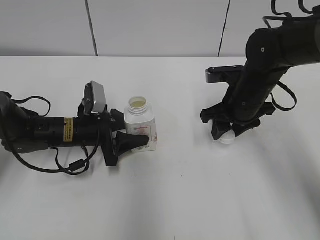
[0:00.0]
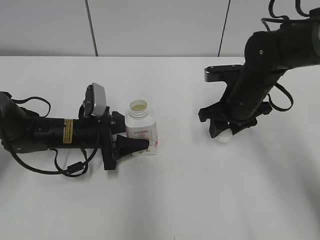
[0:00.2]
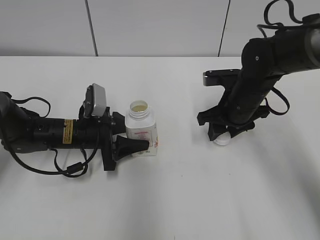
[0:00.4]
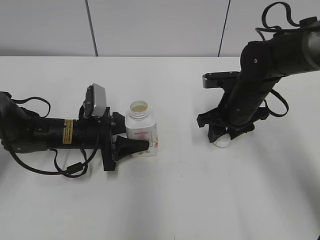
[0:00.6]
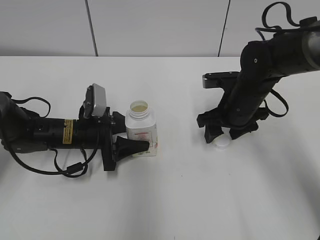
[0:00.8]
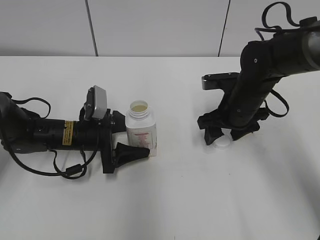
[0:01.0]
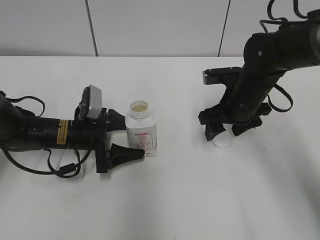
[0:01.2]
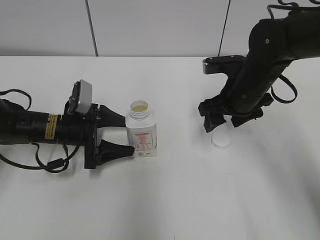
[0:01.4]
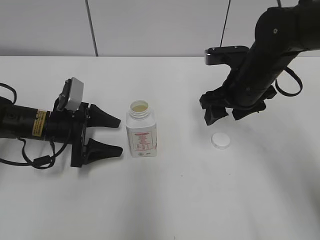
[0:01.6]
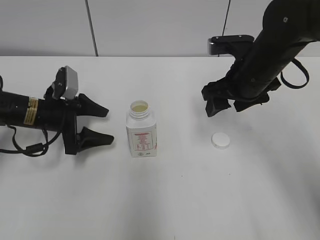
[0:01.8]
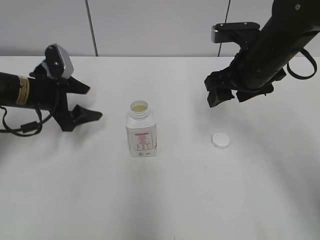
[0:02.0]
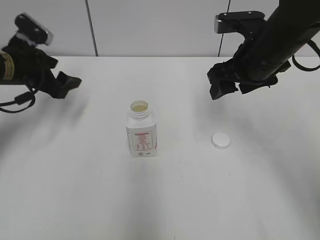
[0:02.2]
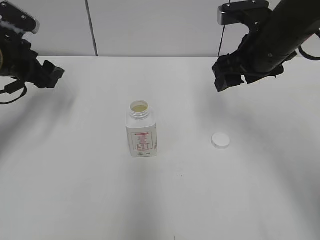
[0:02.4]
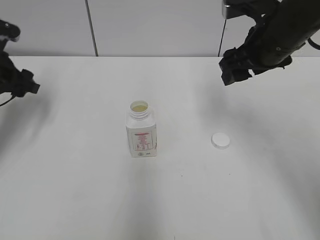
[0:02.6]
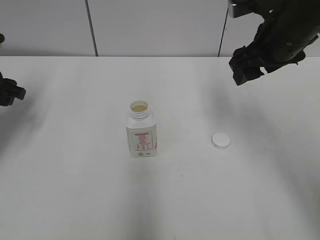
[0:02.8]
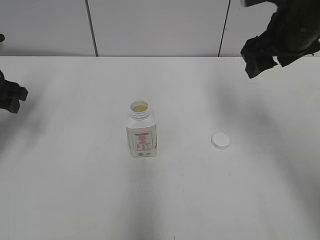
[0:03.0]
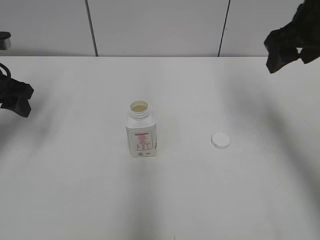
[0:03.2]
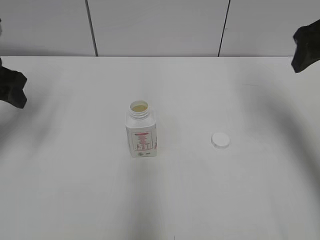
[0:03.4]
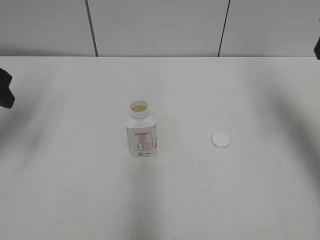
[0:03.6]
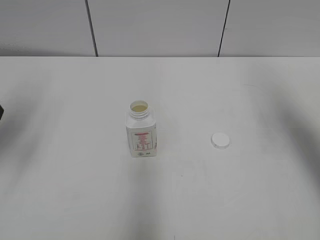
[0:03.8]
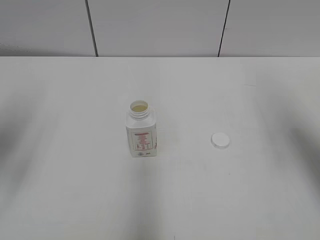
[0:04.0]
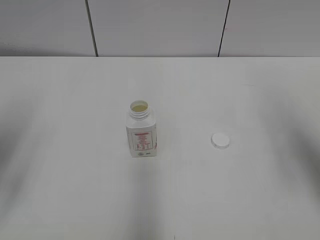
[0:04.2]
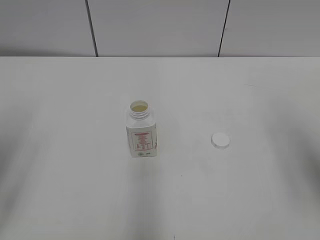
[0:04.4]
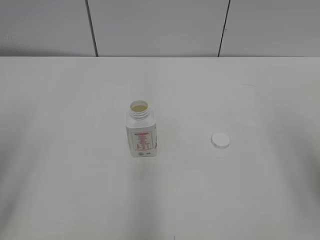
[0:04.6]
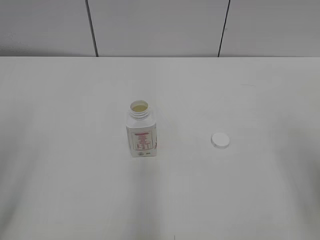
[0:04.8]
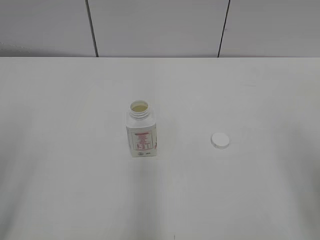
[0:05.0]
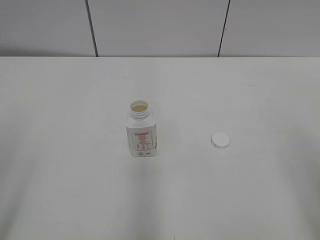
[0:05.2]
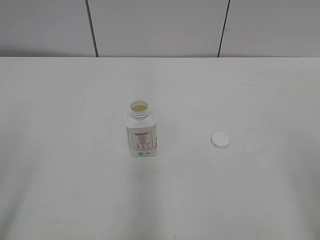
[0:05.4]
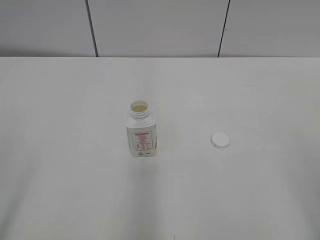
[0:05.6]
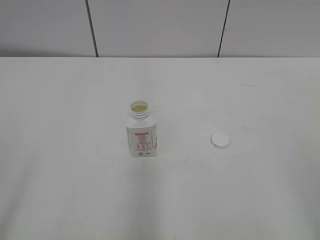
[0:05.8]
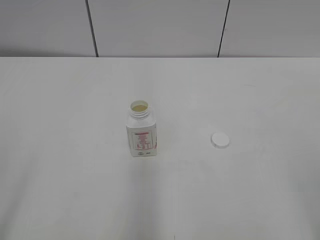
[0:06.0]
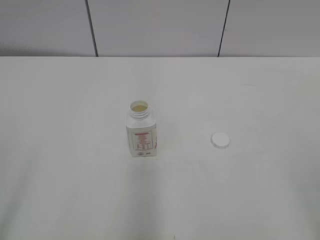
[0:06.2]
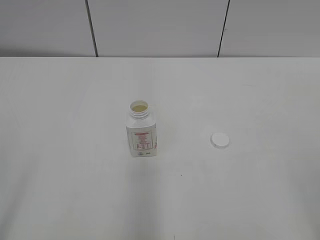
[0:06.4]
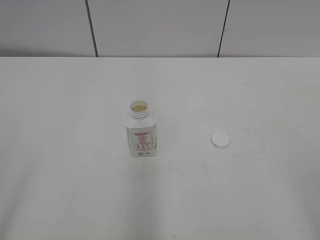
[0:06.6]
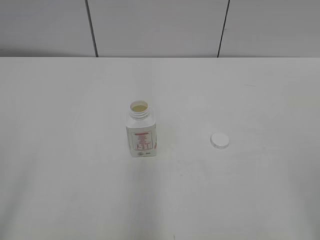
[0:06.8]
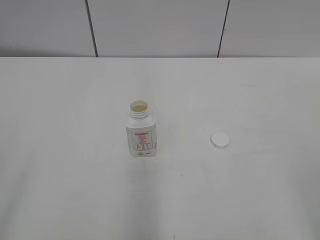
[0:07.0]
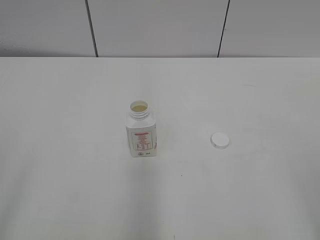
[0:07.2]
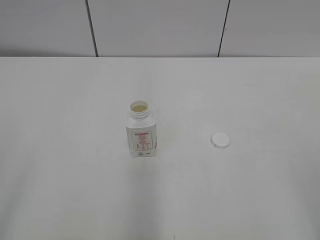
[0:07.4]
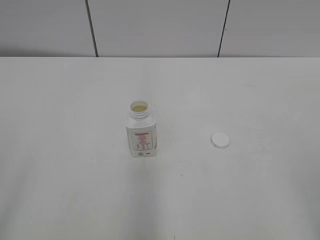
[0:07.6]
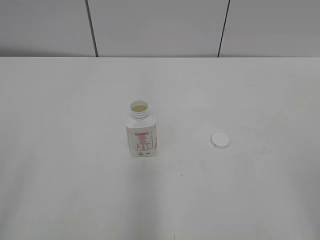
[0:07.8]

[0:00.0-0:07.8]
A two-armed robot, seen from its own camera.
0:00.0 to 0:01.6: The left gripper goes roughly 5 cm to the left, and opens. The right gripper opens.
0:01.6 to 0:03.2: The left gripper goes about 15 cm upward and to the left, and closes up, while the right gripper travels upward and to the right by approximately 15 cm.
0:03.2 to 0:04.6: The two grippers go about 20 cm backward.
0:06.2 to 0:07.8: Neither gripper changes place.

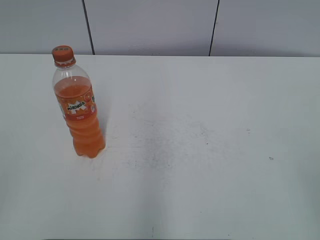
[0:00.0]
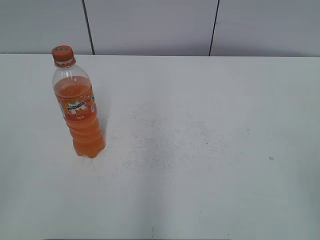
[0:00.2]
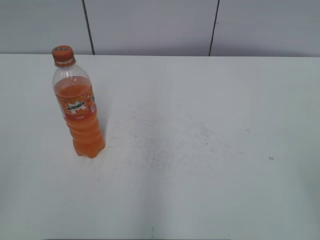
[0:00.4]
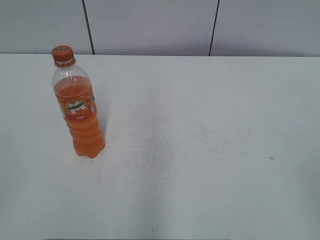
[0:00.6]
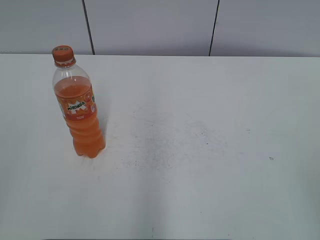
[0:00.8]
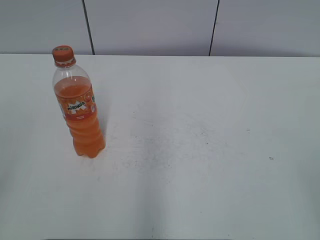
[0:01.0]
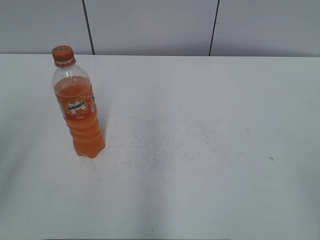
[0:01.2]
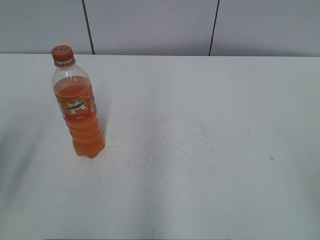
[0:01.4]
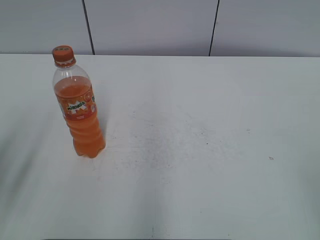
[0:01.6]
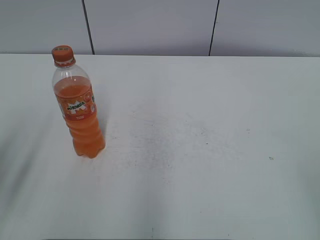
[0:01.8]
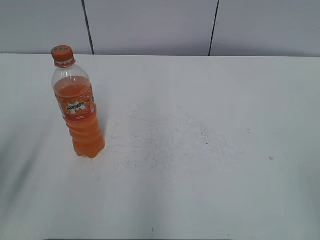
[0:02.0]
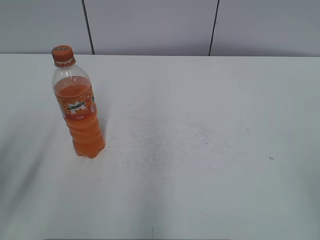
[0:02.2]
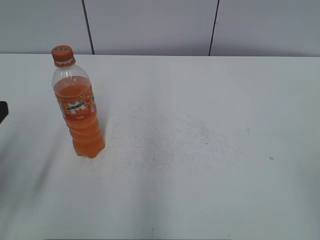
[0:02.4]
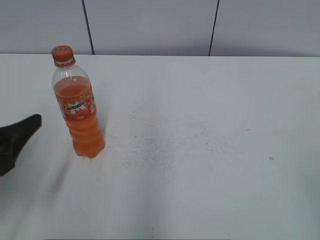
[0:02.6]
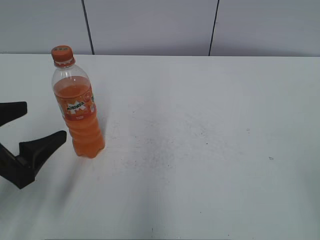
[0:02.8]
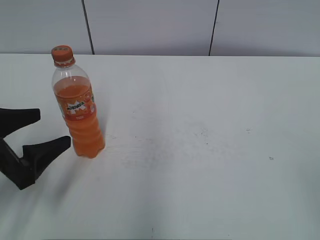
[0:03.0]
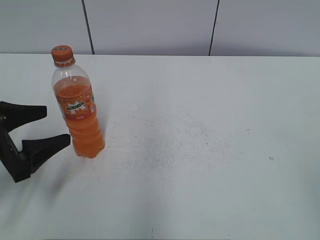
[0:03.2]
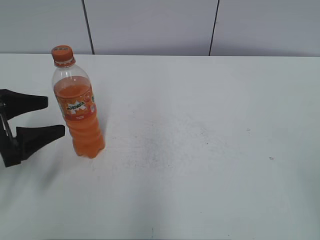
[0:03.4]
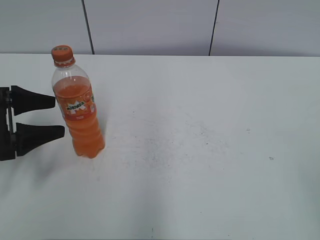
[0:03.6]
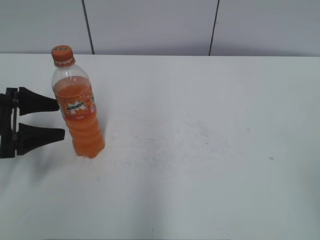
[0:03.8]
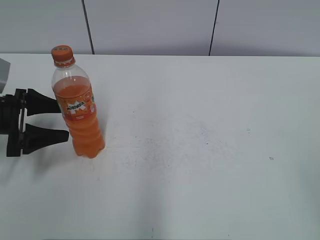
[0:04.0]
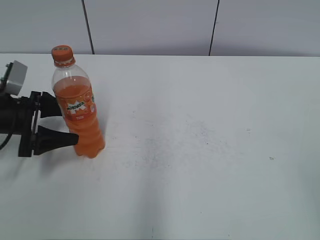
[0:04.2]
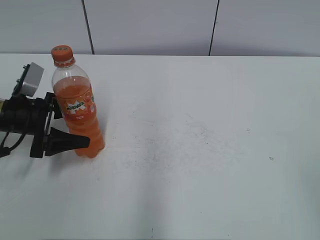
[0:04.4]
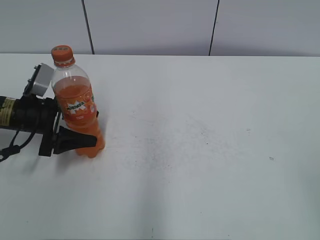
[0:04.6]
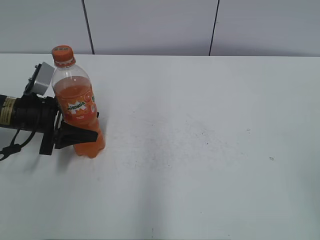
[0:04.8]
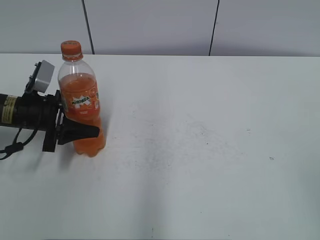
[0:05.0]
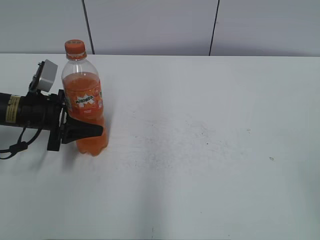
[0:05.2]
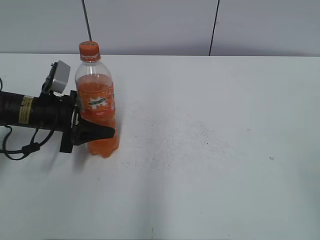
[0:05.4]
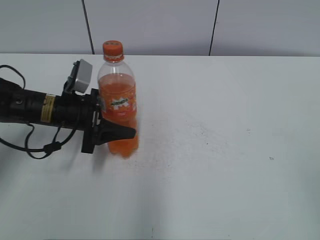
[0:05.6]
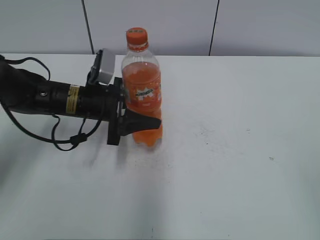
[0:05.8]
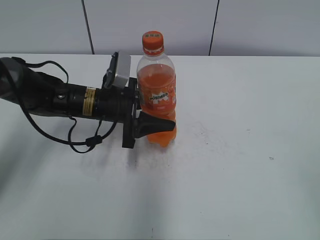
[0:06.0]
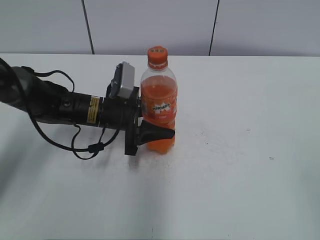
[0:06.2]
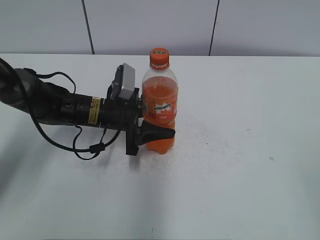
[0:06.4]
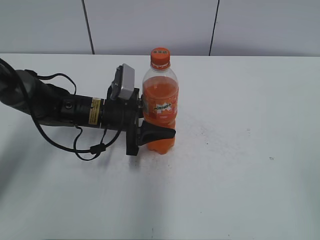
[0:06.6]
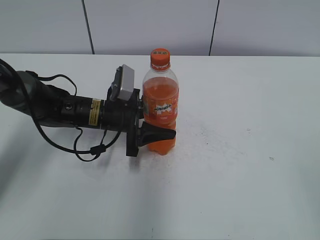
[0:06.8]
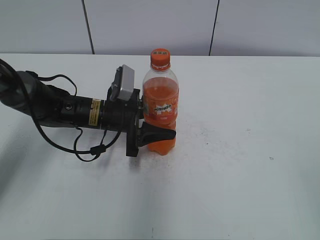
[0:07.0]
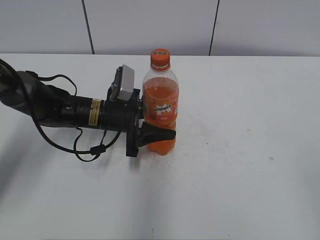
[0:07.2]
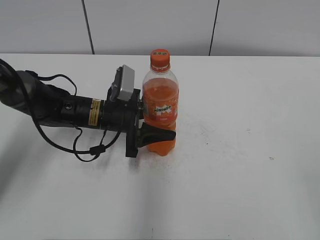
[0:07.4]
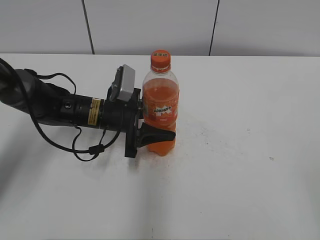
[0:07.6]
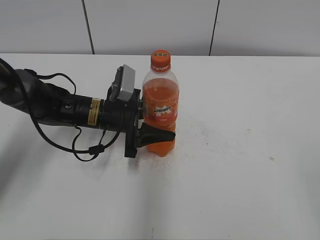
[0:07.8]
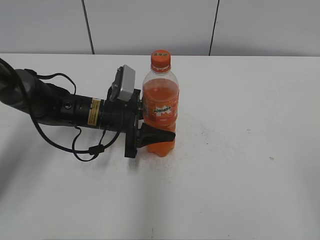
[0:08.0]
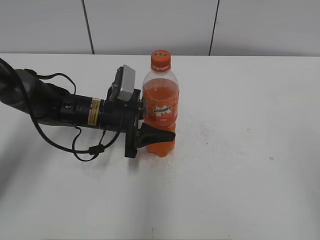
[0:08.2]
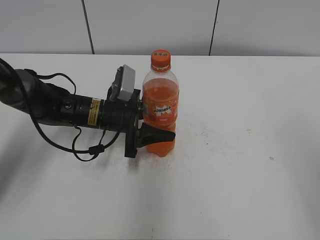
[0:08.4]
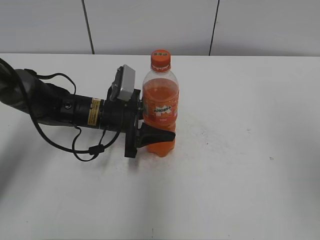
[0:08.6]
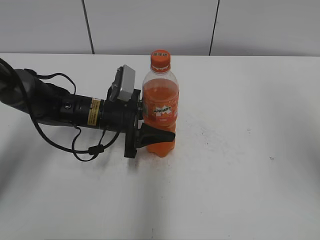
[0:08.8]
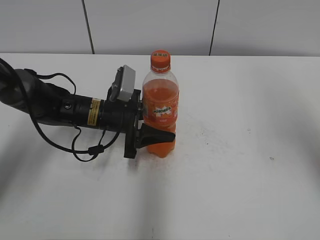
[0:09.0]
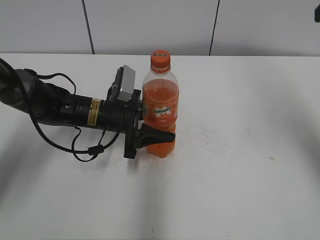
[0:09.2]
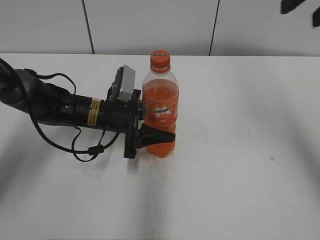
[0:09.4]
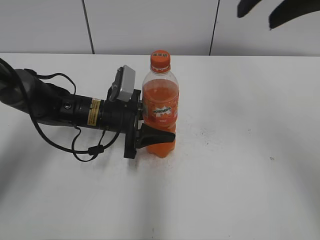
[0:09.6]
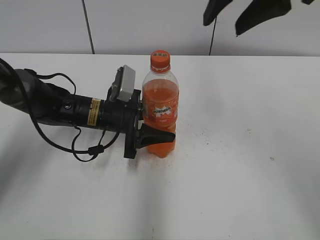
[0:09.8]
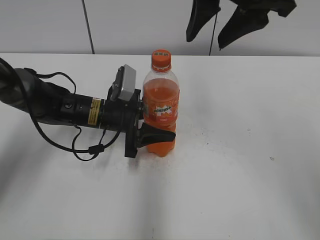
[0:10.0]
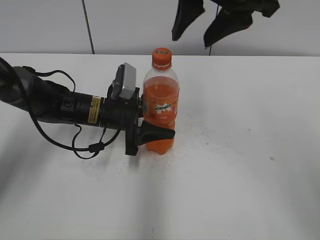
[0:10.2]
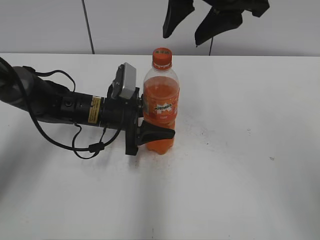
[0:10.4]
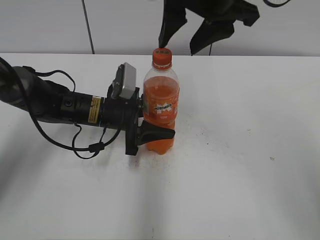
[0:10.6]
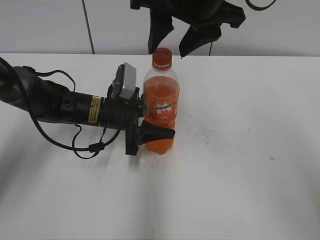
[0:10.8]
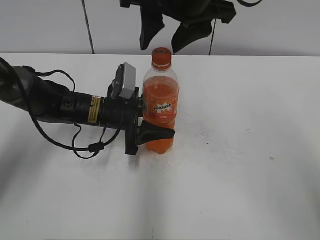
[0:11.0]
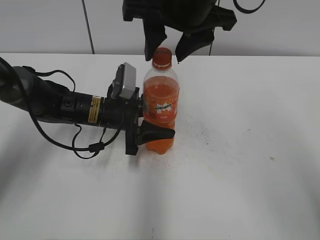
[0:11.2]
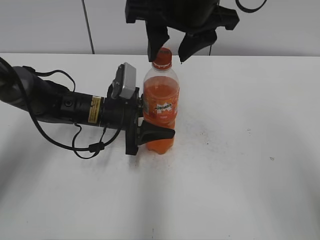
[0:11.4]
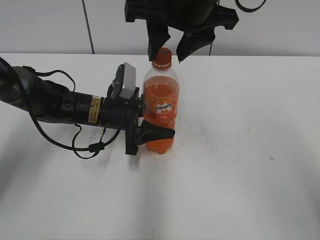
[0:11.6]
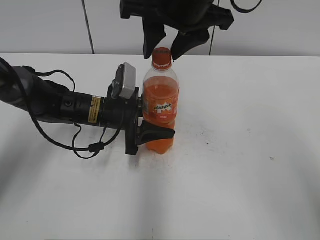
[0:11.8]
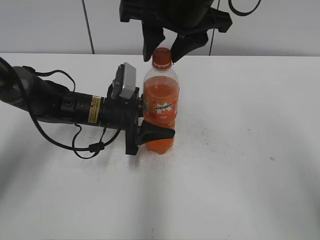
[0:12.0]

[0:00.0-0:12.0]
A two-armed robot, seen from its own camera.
Step, 0:00.0 to 0:05.0: Grab the Mirinda with the left hand.
Step, 0:05.2 to 0:06.4: Move the Mirinda from left to right.
0:01.6 to 0:03.0: The left gripper shifts approximately 15 cm downward and forward, and opens up.
0:03.0 to 0:04.4: The left gripper is displaced forward by some 15 cm.
0:04.4 to 0:06.0: The left gripper travels to the right by approximately 15 cm, and closes up.
0:06.0 to 0:07.6: The grippers make only small movements.
0:07.6 to 0:09.0: The right gripper shifts some 25 cm forward and upward.
0:09.0 to 0:10.4: The right gripper travels to the left and forward by roughly 20 cm.
0:10.4 to 0:12.0: The right gripper ends up approximately 5 cm from where it was.

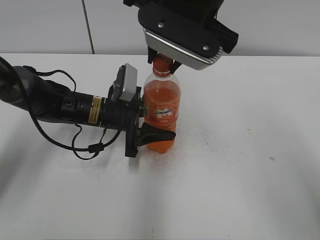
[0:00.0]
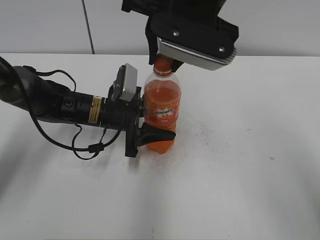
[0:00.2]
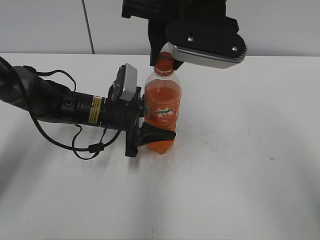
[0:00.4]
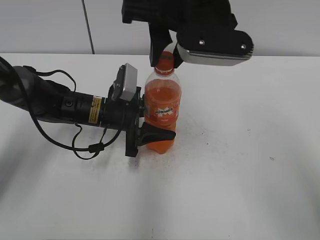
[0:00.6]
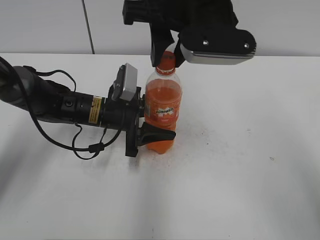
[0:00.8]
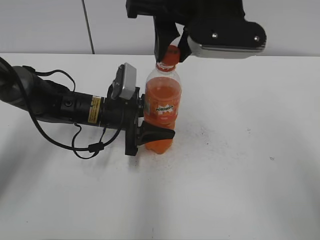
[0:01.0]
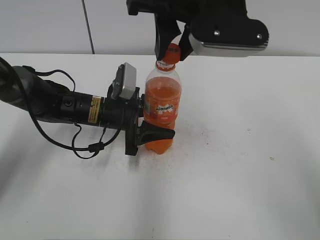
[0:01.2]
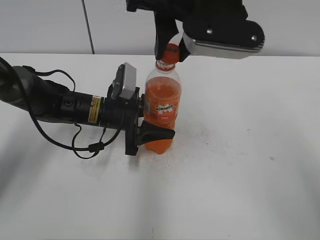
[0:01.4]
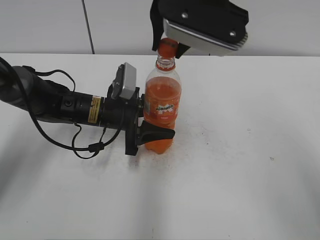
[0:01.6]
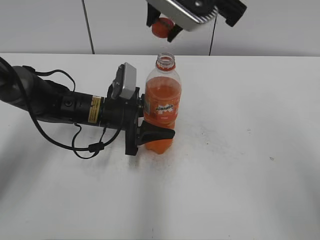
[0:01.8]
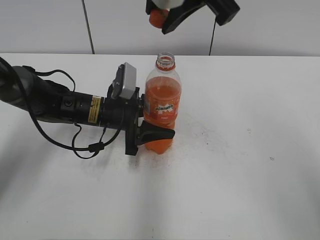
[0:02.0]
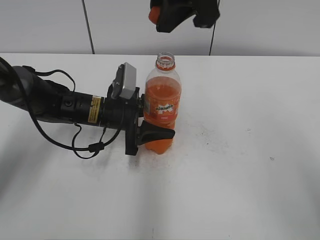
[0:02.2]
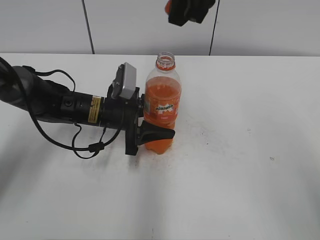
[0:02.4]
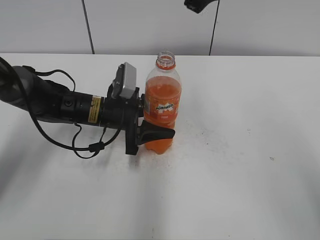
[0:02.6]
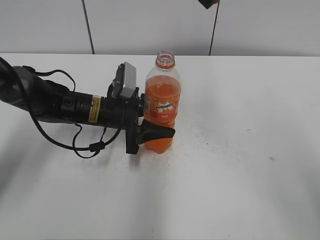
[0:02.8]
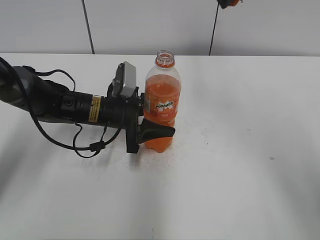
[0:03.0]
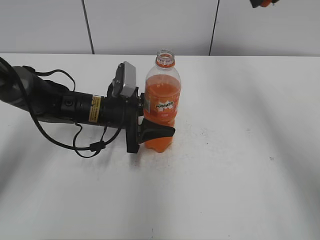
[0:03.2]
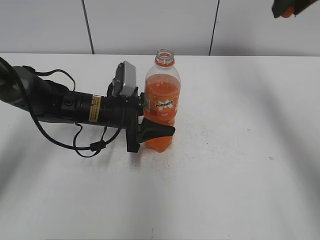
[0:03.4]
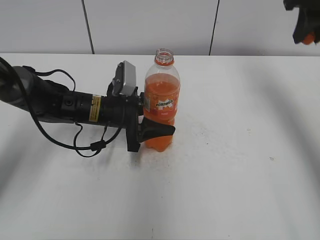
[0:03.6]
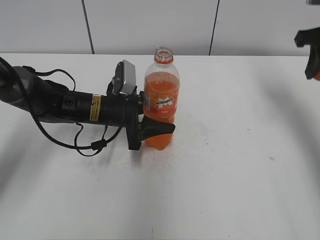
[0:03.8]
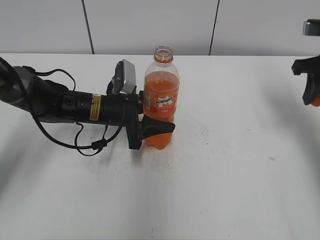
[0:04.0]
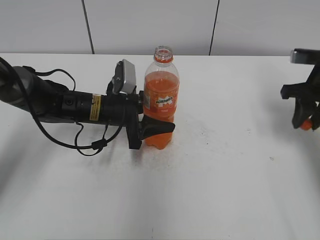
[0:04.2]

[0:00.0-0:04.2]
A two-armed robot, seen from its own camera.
0:01.4 to 0:02.8: The right gripper shifts by some 5 cm.
0:02.8 to 0:04.2: The right gripper goes some 30 cm to the right and downward.
